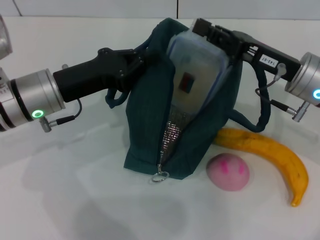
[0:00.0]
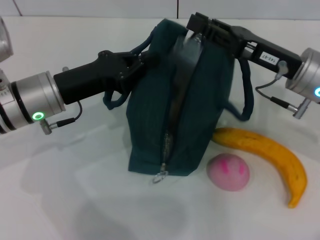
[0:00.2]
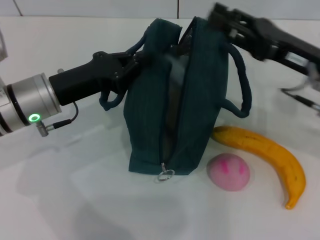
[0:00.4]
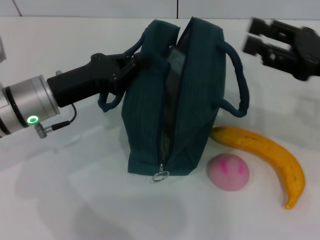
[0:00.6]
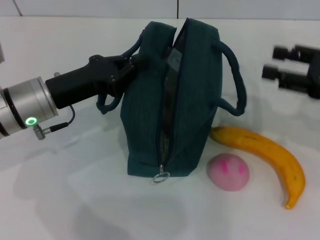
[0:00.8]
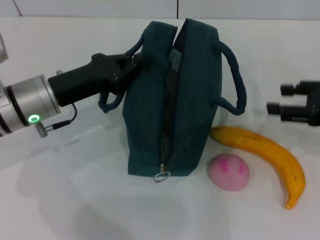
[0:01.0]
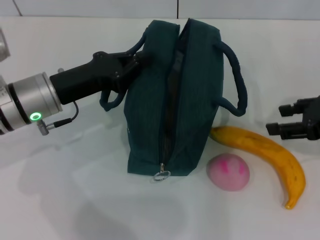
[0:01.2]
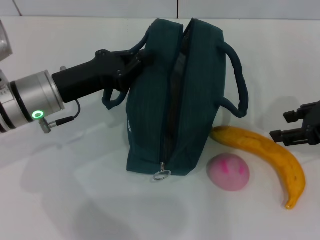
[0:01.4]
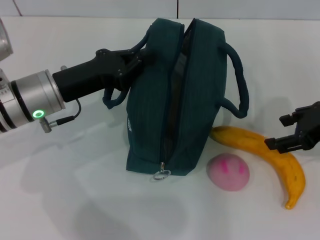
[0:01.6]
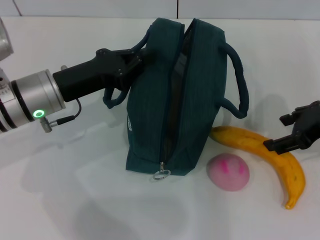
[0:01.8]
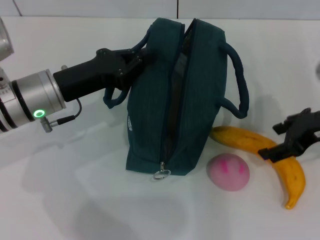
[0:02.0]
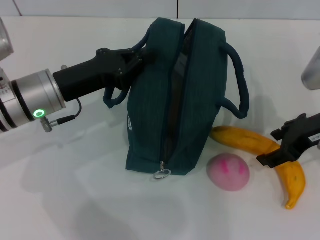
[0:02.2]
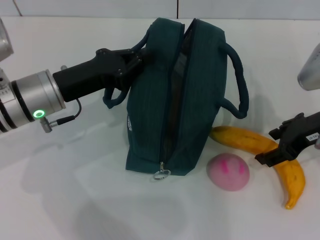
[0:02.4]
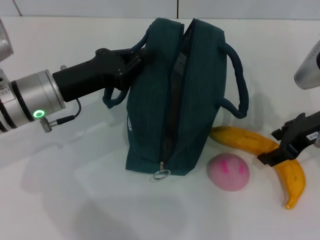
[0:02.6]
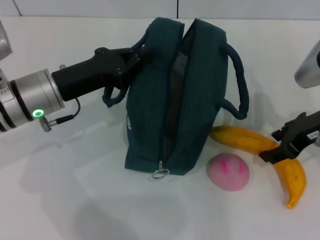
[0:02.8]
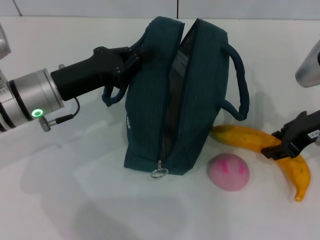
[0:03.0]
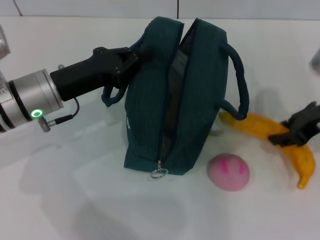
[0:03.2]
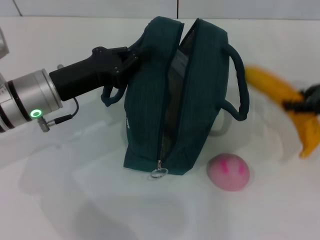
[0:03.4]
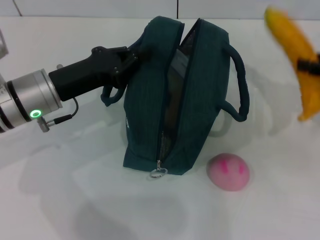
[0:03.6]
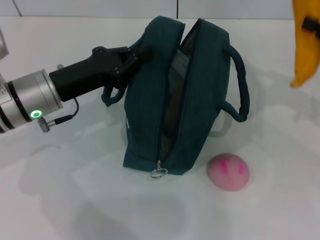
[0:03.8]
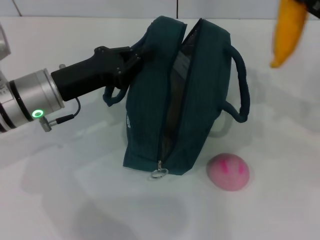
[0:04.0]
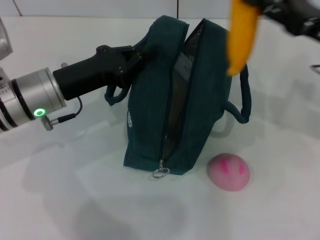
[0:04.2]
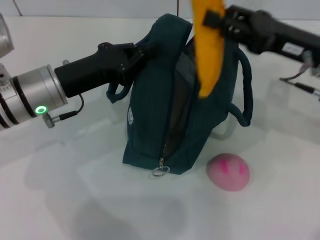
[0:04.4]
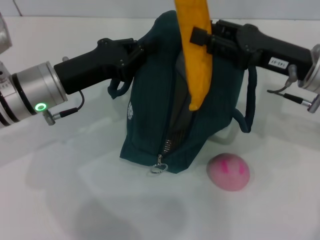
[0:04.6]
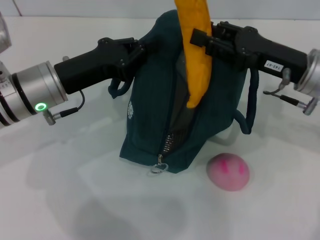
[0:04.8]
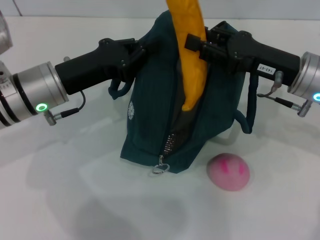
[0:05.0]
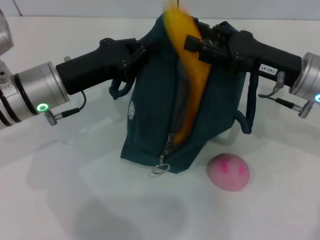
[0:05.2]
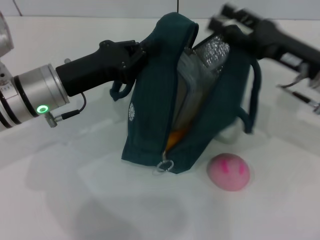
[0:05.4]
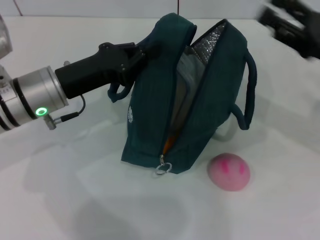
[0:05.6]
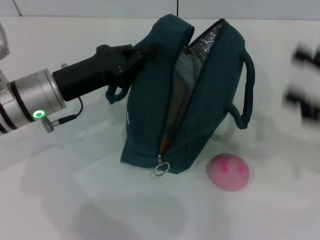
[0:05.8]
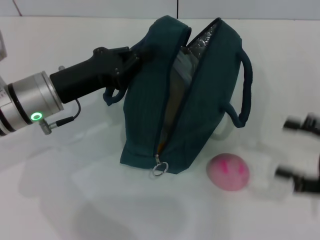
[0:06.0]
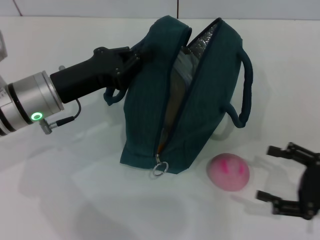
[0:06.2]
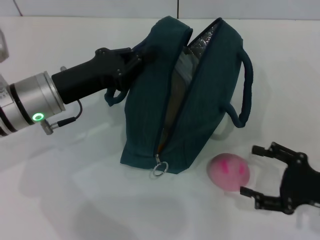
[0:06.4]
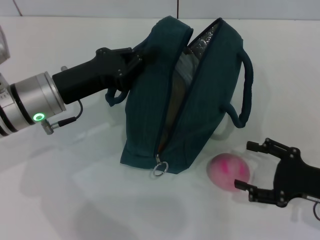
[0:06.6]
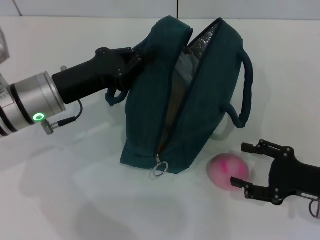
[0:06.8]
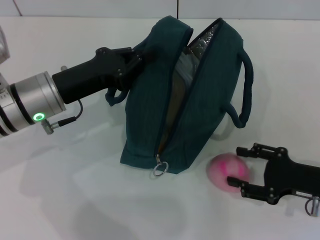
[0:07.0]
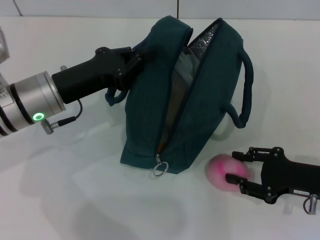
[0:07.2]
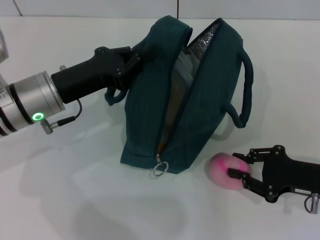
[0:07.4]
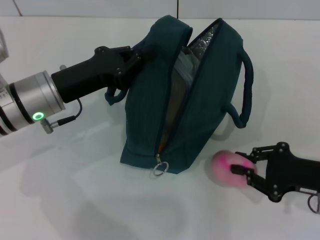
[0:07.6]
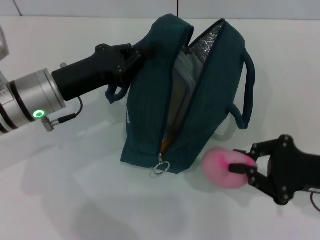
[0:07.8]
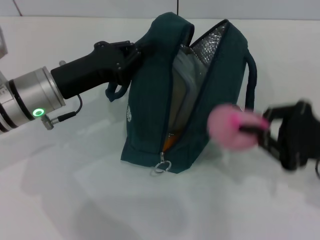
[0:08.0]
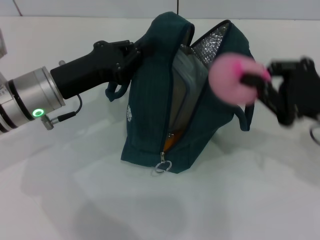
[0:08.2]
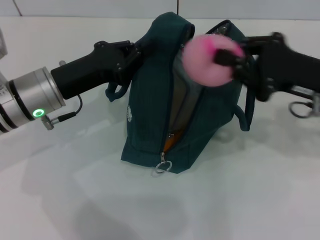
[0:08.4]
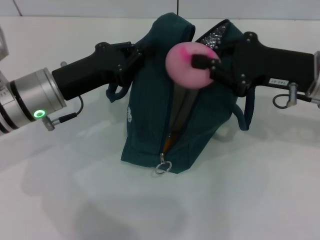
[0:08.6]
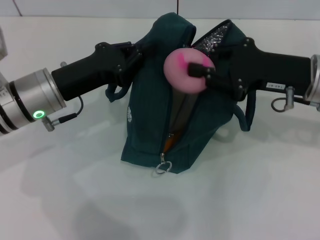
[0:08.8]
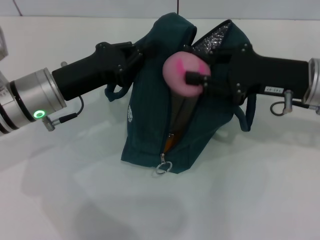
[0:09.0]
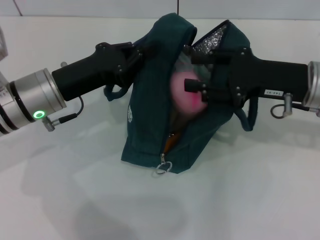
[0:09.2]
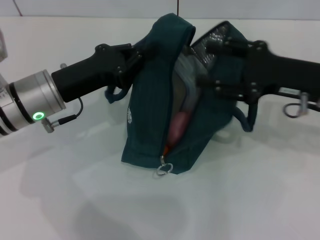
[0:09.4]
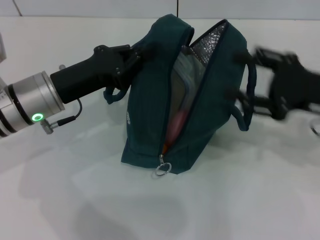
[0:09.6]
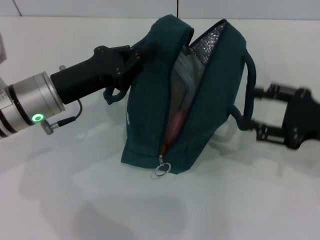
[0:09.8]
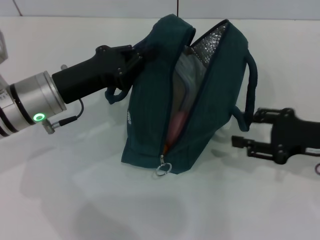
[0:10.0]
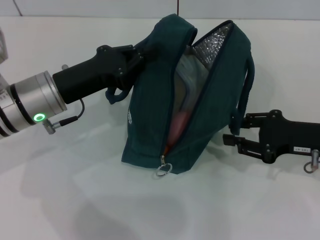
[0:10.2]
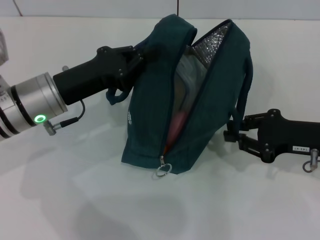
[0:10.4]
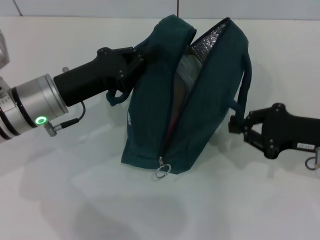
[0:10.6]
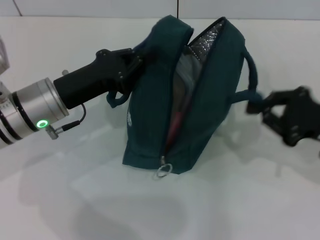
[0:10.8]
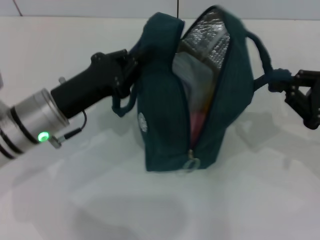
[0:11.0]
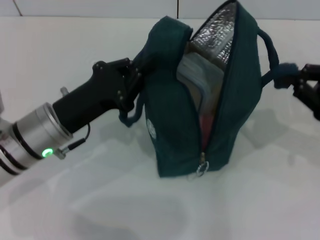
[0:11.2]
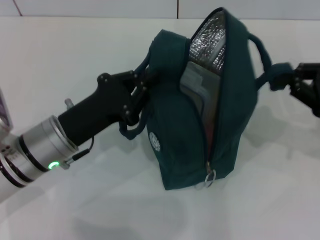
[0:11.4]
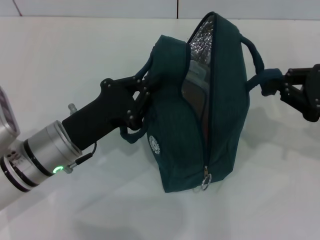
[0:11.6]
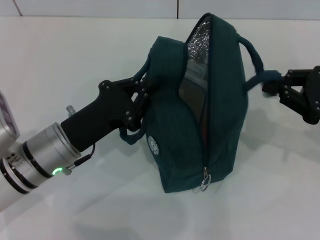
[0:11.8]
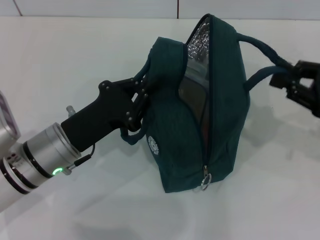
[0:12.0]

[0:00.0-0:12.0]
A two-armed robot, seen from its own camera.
Step, 0:00.6 to 0:02.8: Take the banana with your right hand.
Step, 0:03.0 to 0:05.2: Put the banana into the lunch bag with your right hand.
Step, 0:05.4 to 0:07.2: Grab the peach with your right hand.
0:00.0 to 0:01.6: The right gripper moves to the right, about 5 cm, and opens.
0:01.6 to 0:03.0: The grippers make only small movements.
0:03.0 to 0:04.4: The right gripper reaches some 10 cm to the right, then returns, and closes its fingers.
0:04.4 to 0:06.0: The right gripper goes some 15 cm backward, to the right and downward, and opens.
0:06.0 to 0:07.6: The right gripper travels to the left by approximately 5 cm, and closes.
0:07.6 to 0:09.0: The right gripper heads upward, forward and to the left, covering about 15 cm.
0:09.0 to 0:10.4: The right gripper moves downward and to the right, some 10 cm, and opens, then closes once more.
0:10.4 to 0:12.0: The right gripper goes about 5 cm to the right. The left gripper heads backward, covering approximately 5 cm.

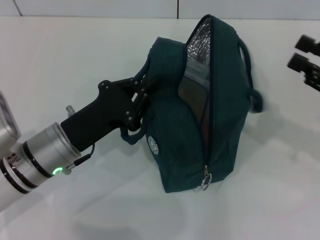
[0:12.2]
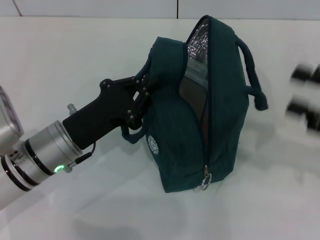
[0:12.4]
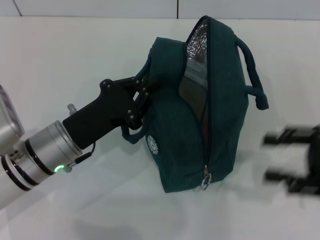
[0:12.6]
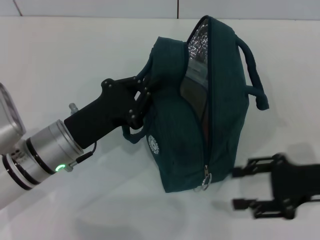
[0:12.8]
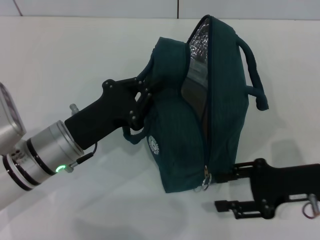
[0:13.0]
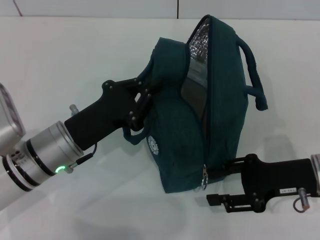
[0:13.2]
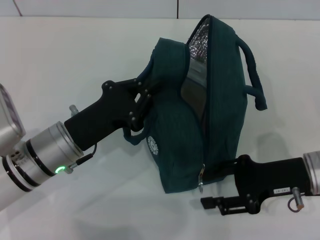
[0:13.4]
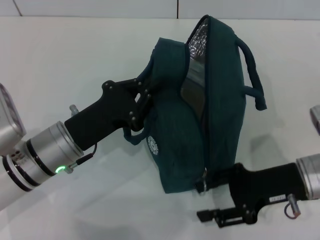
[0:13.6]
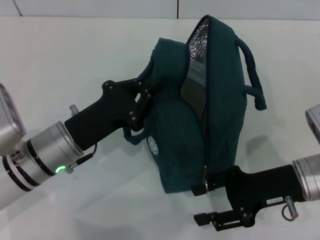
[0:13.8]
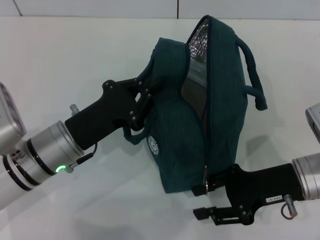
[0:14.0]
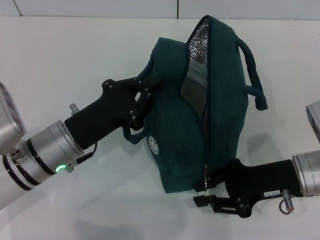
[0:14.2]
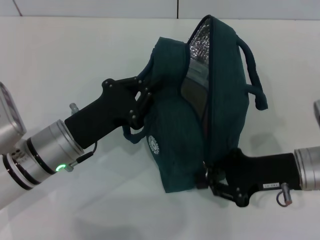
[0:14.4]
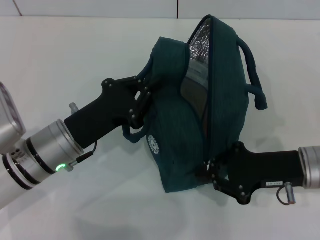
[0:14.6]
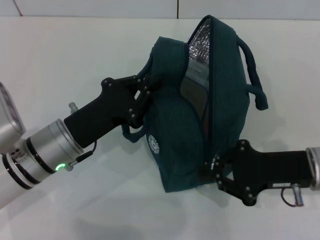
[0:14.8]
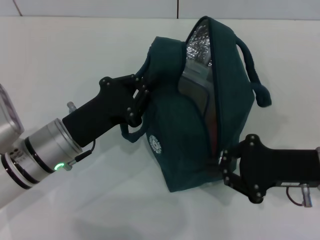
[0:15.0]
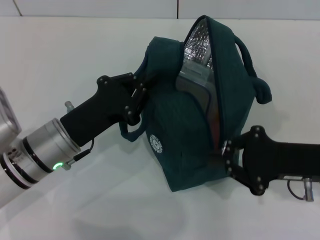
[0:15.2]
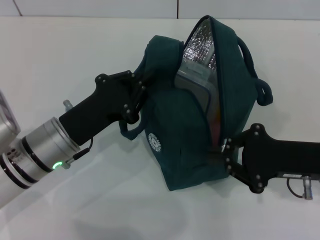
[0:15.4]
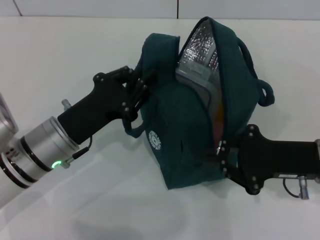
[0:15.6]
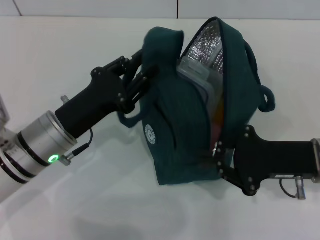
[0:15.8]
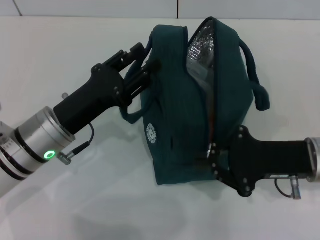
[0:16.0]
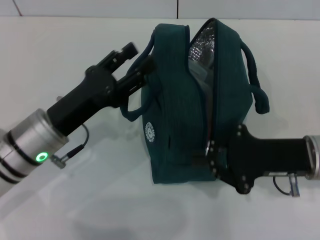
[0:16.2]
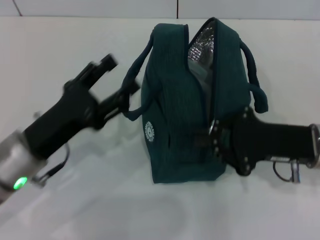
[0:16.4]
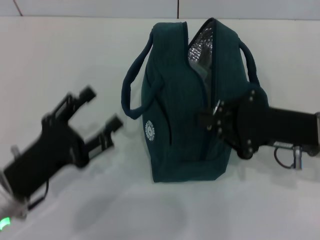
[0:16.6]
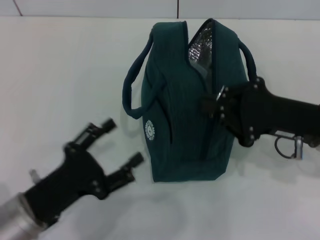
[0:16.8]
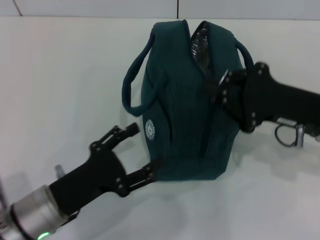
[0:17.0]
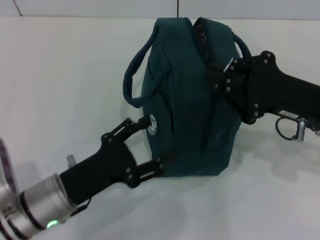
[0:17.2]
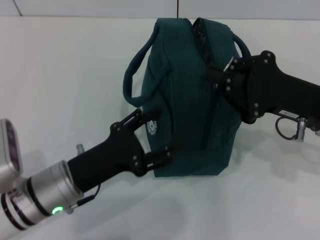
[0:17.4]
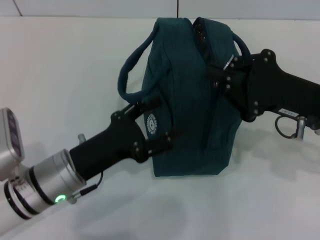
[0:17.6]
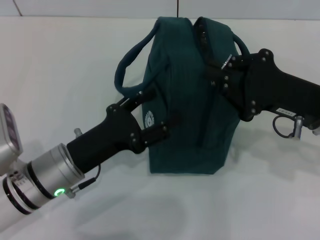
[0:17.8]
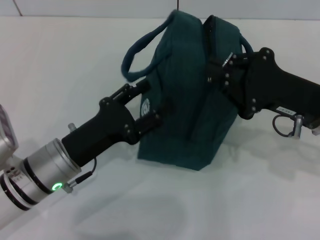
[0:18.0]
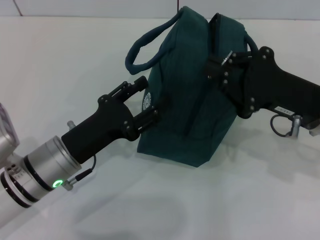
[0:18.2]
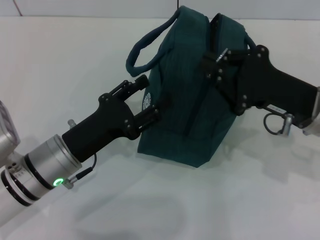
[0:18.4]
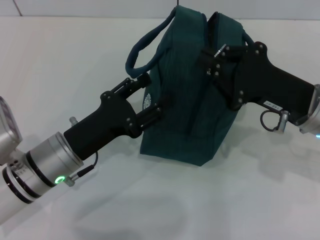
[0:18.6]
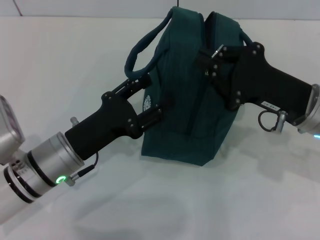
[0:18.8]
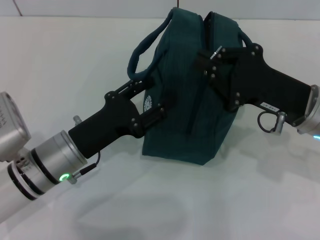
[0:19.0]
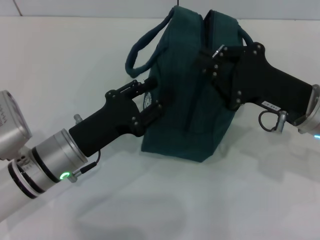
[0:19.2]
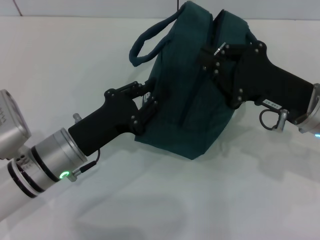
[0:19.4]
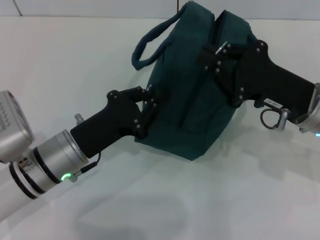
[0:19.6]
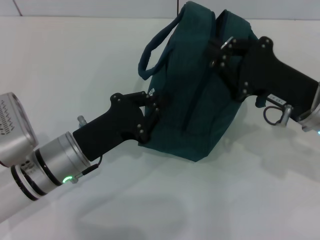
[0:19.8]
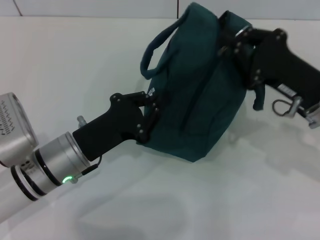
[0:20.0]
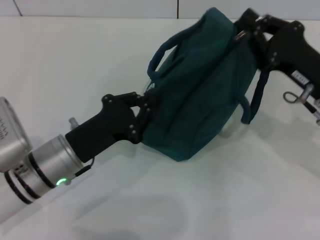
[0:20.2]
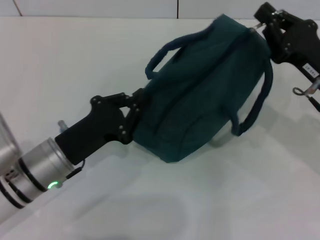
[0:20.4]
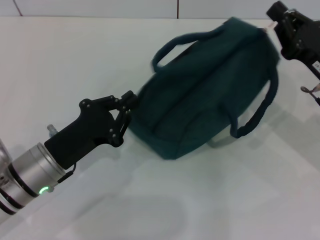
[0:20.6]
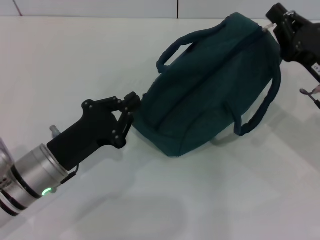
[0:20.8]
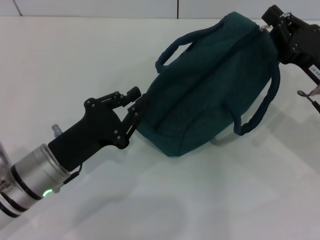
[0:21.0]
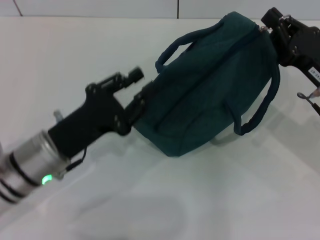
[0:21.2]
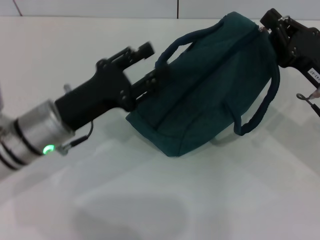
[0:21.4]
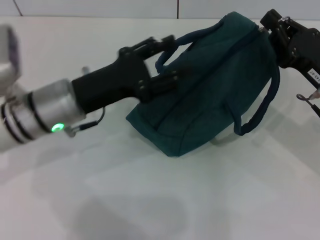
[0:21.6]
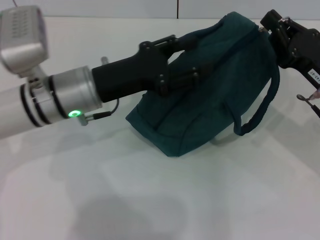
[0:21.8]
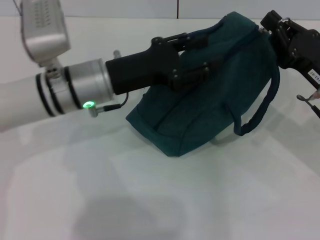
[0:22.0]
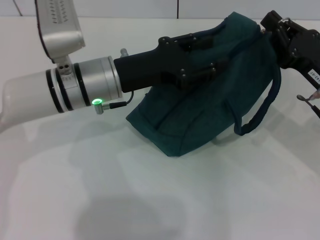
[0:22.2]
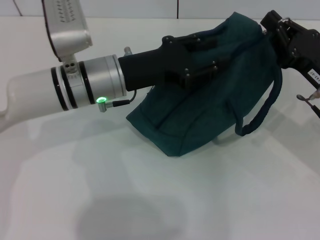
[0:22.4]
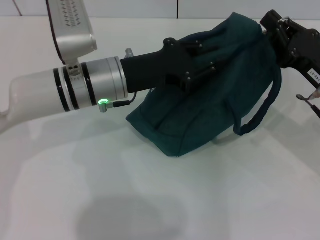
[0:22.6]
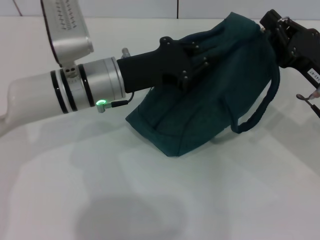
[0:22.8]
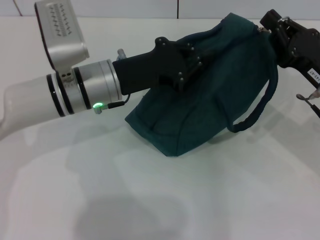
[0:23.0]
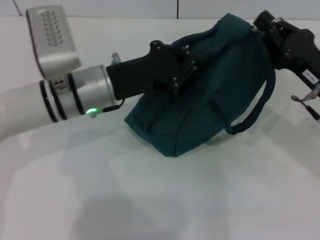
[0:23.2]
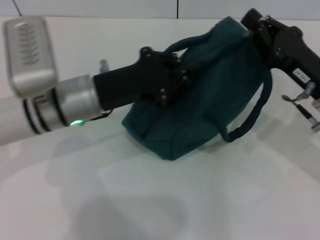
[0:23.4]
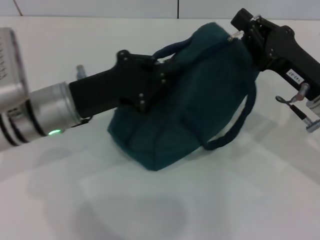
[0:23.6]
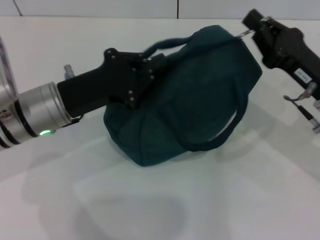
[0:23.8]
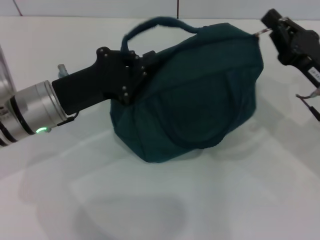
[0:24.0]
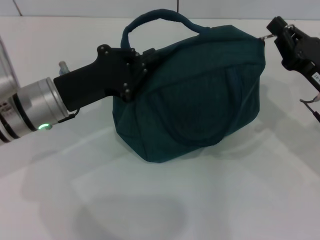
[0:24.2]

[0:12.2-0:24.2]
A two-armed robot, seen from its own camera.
0:12.2 to 0:13.8: The right gripper heads to the left and downward, covering about 15 cm, and opens its fingers.
0:13.8 to 0:15.2: The right gripper closes up.
0:15.2 to 0:16.6: The left gripper heads backward and to the left, covering approximately 10 cm, and opens up.
0:16.6 to 0:18.2: The left gripper moves to the right and forward, about 10 cm.
0:18.2 to 0:19.8: The left gripper closes.
0:21.2 to 0:22.6: The left gripper goes approximately 15 cm forward, to the right and upward, and opens.
0:22.6 to 0:24.2: The left gripper moves to the left, roughly 10 cm, and closes up.
